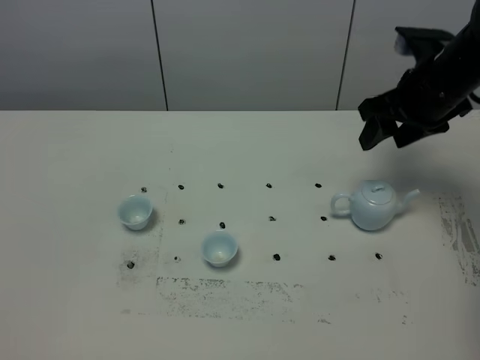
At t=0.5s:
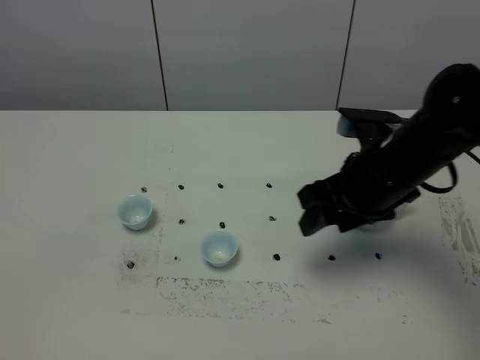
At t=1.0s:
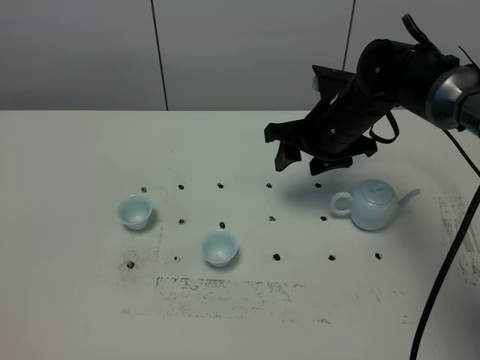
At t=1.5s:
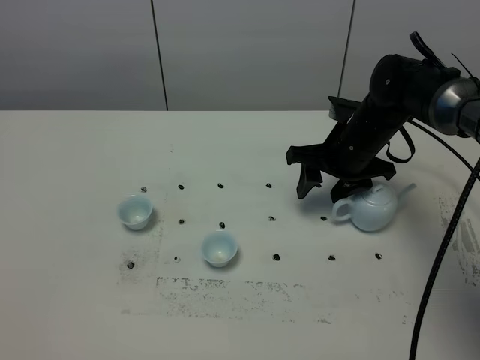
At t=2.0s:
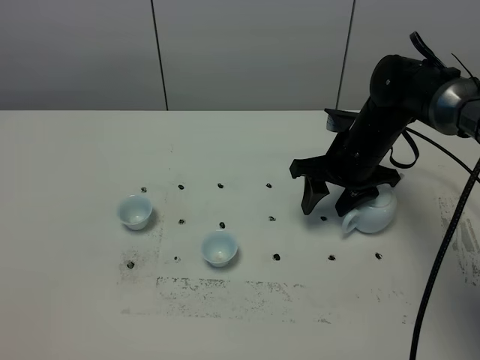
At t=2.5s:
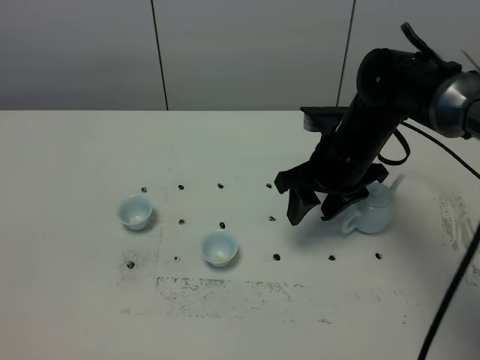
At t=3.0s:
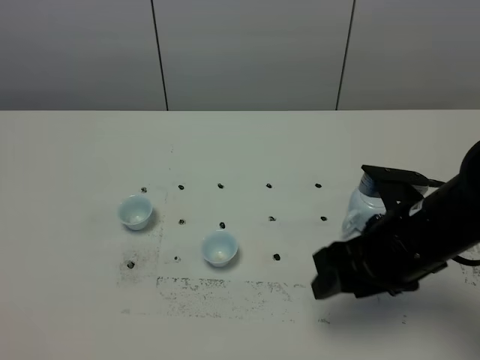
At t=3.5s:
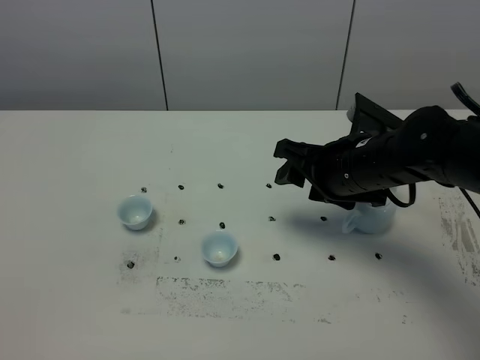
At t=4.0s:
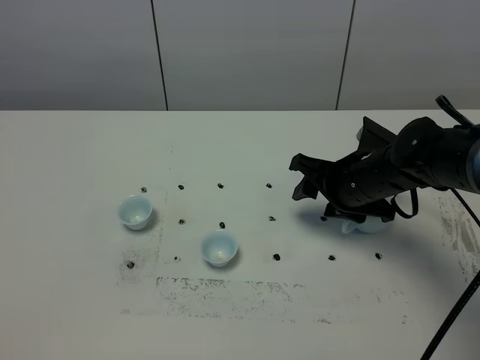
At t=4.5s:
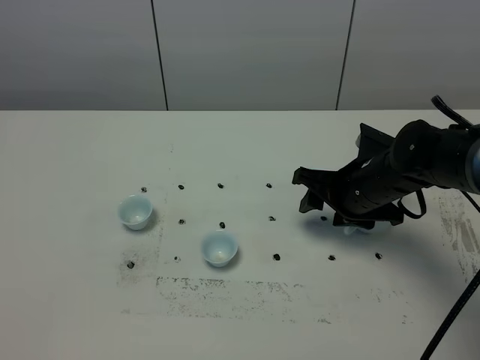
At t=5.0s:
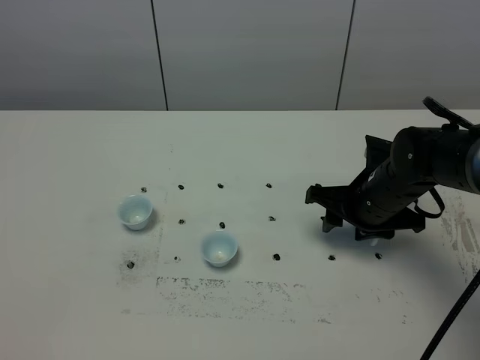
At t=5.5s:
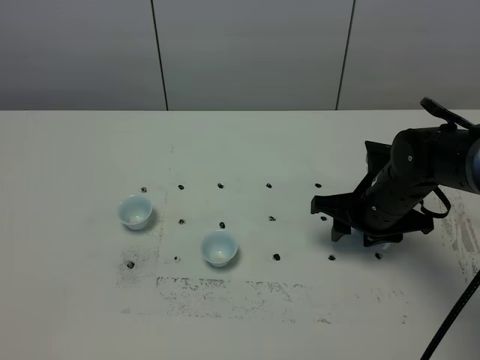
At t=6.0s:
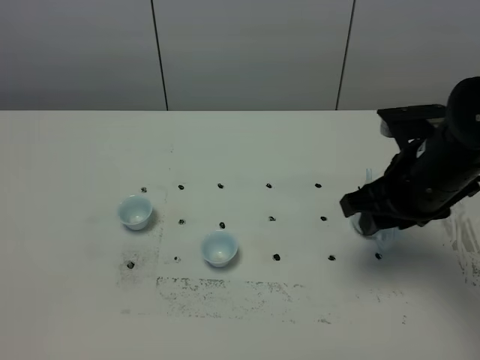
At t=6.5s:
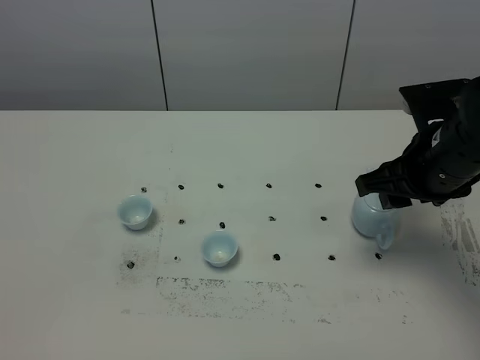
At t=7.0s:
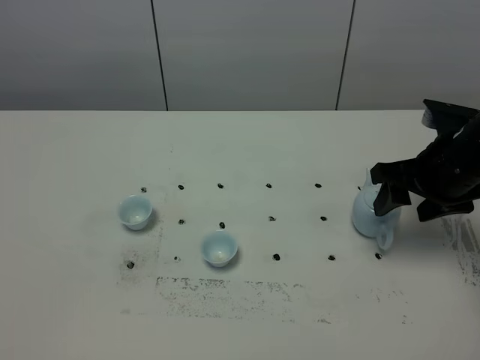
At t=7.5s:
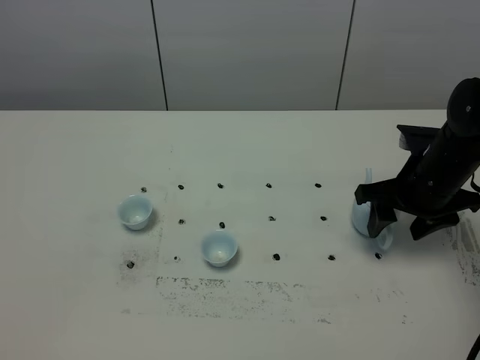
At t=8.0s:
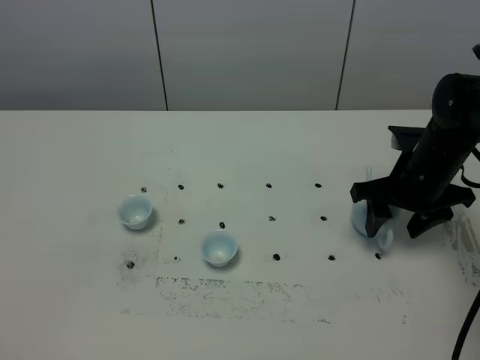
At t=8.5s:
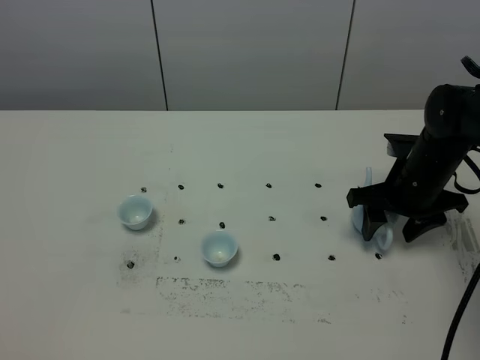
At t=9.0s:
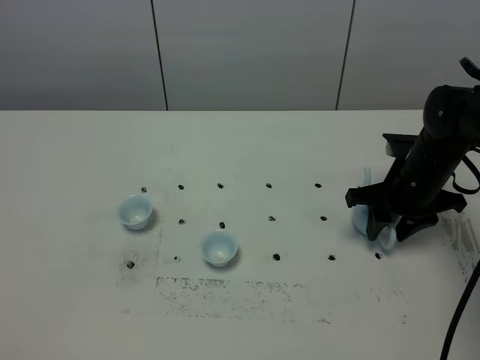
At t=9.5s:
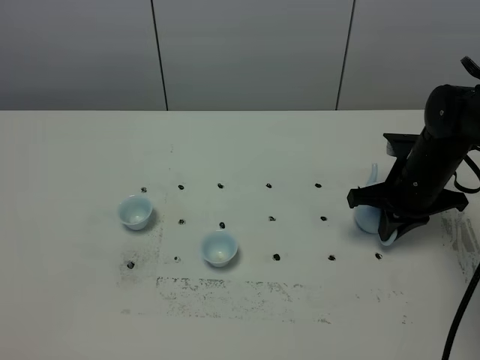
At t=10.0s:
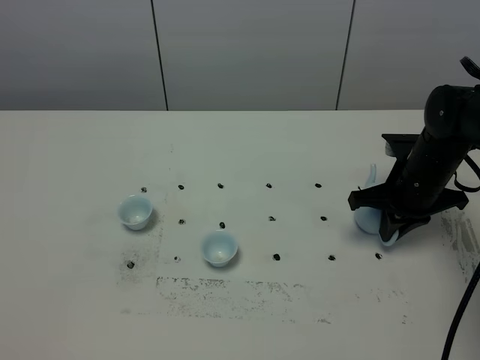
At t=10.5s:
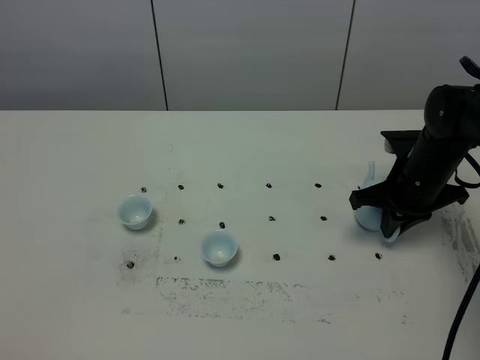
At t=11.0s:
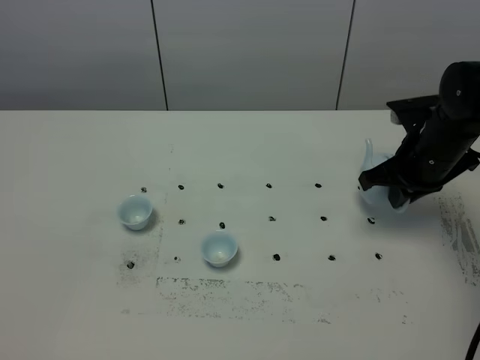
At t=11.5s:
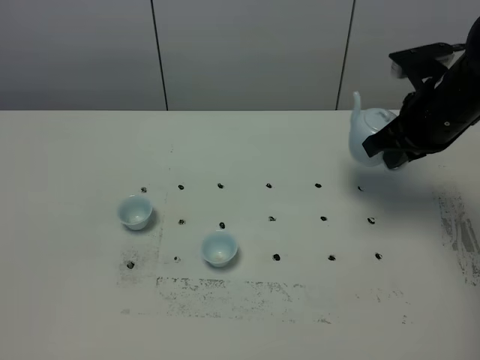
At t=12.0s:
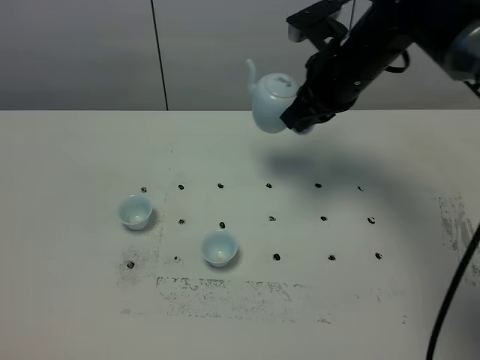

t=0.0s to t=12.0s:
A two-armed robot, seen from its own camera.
Task of the whole recording: grasp the blue porcelain teapot and pour the tea into the two blue porcelain teacups one by one, put the blue porcelain teapot back in its original place.
Step, t=0.0s to t=11.0s: Pick up the teapot with the right gripper.
t=0.0s to t=2.0s: The right gripper shifts some 15 cm downward and to the left, and travels backward and back again, about 10 cm each way.
t=2.0s to t=4.0s: The right gripper travels backward and back again, approximately 20 cm each way.
t=4.0s to t=6.0s: The right gripper moves upward, backward and to the right, some 10 cm.
t=6.0s to t=8.0s: The right gripper shifts approximately 10 cm forward and downward.
t=8.0s to t=10.0s: The right gripper closes its fingers.
t=10.0s to t=12.0s: The right gripper shifts approximately 20 cm upward and to the left.

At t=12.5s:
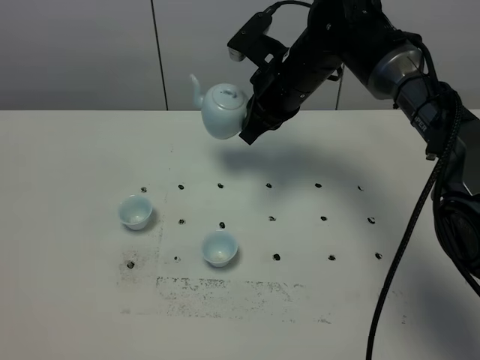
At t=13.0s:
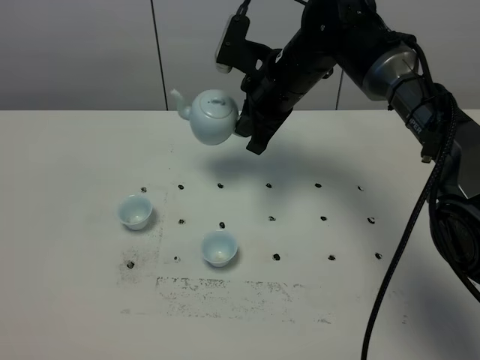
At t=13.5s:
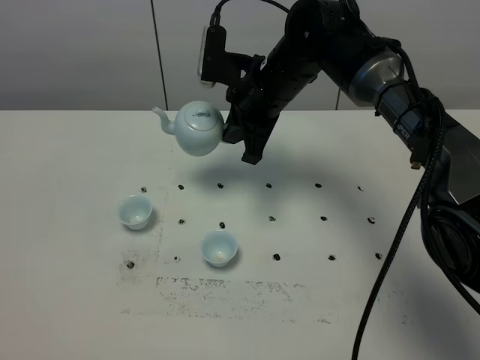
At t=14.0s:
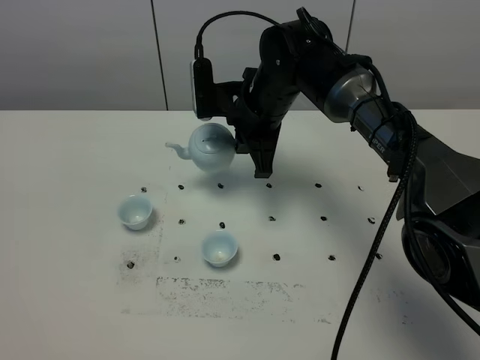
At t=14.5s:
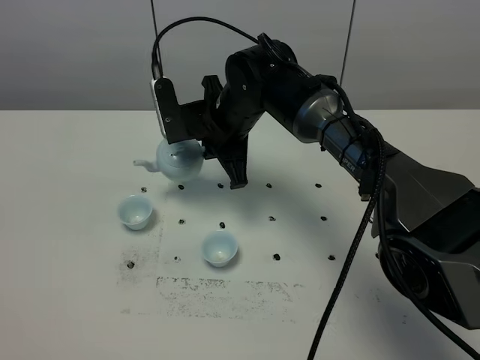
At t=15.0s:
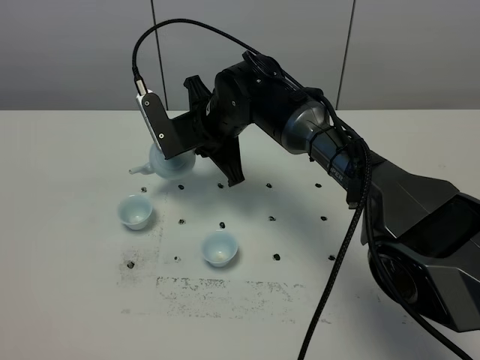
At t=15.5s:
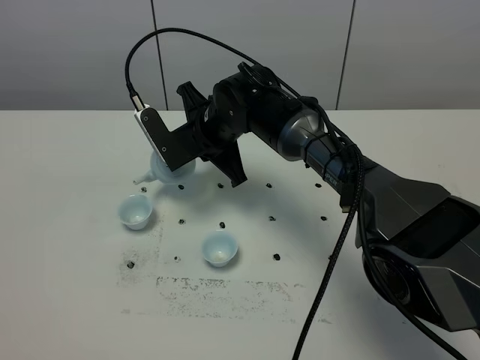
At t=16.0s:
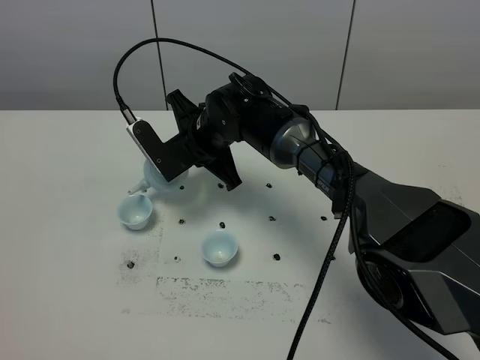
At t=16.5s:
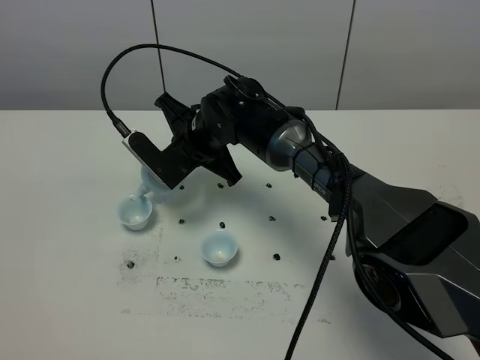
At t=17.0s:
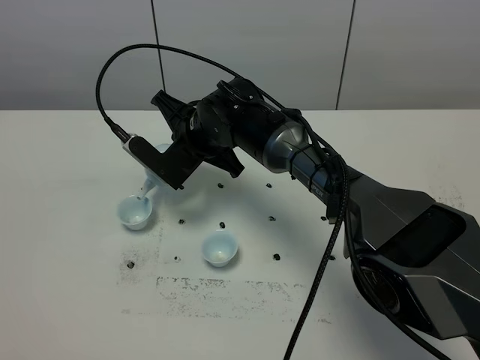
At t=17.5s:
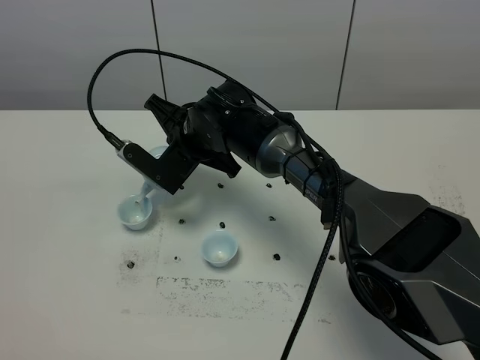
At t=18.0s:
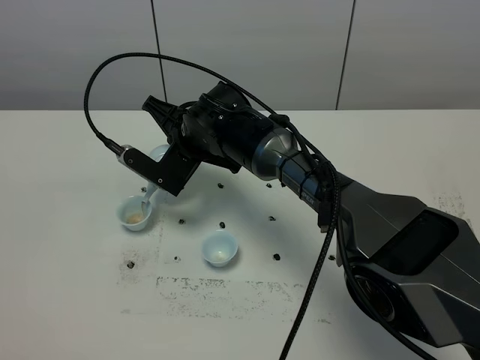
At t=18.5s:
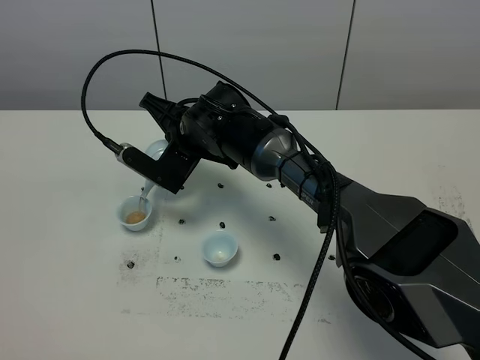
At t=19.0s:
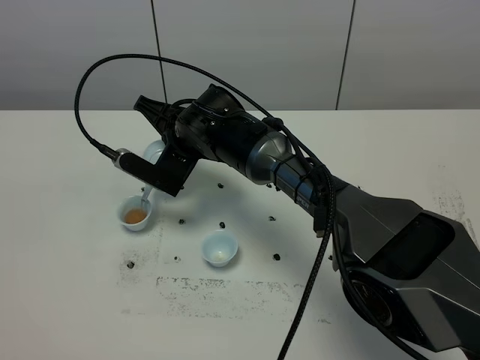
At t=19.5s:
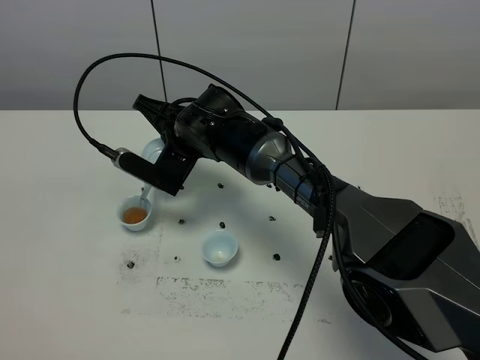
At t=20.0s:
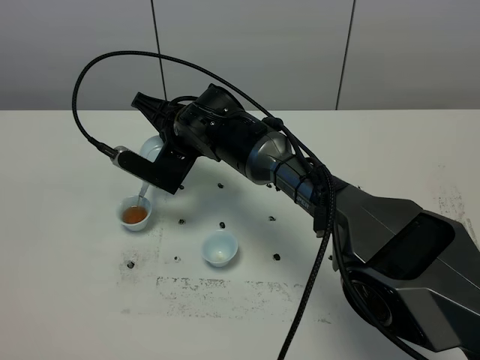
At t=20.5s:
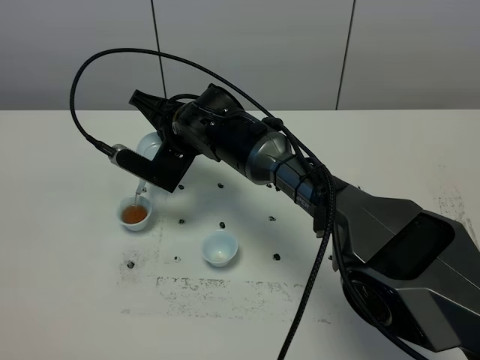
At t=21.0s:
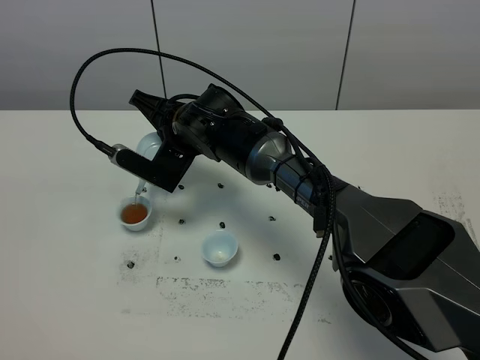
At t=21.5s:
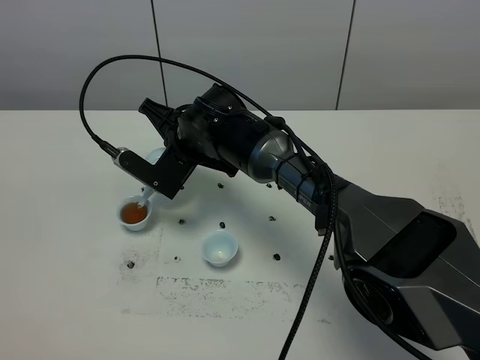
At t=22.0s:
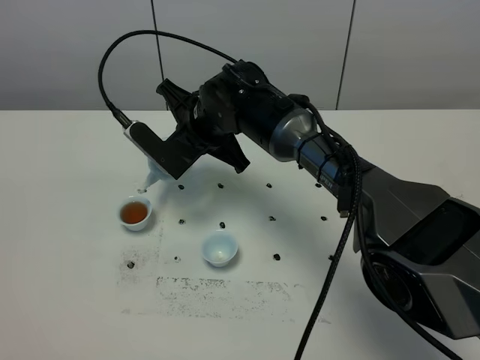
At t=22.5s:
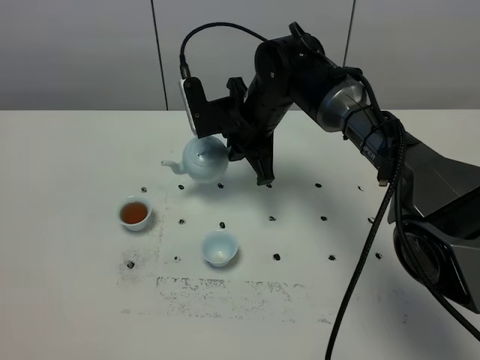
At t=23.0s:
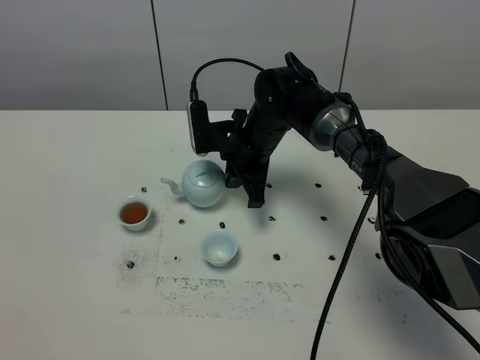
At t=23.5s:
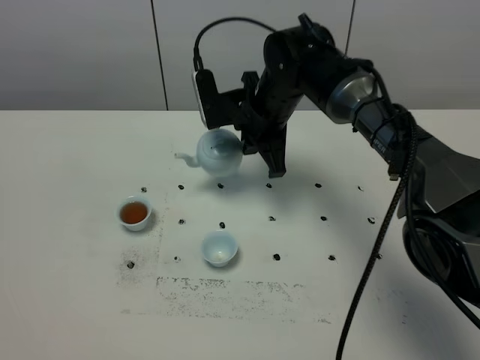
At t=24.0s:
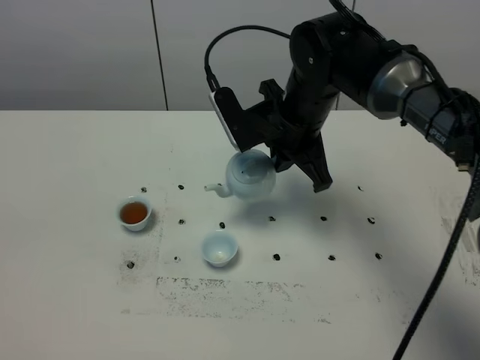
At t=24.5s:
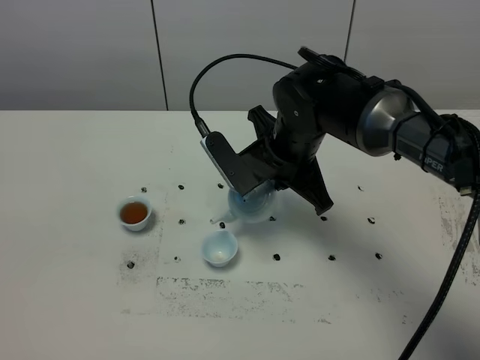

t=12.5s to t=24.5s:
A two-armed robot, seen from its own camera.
Task of the whole recording: grasp the blue porcelain teapot and pour the tea into the two blue porcelain teacups one by one, put the blue porcelain teapot back in its original place.
t=12.5s to t=14.5s: The right gripper moves to the left, roughly 5 cm.
t=16.5s to t=18.5s: The grippers stay close to where they were, moving slightly.
t=18.5s to t=20.5s: The grippers move only a little.
t=20.5s to t=22.5s: The right gripper is displaced to the right by approximately 10 cm.
t=22.5s to t=24.5s: The right gripper heads backward, covering approximately 5 cm, and moves some 5 cm downward and comes back.

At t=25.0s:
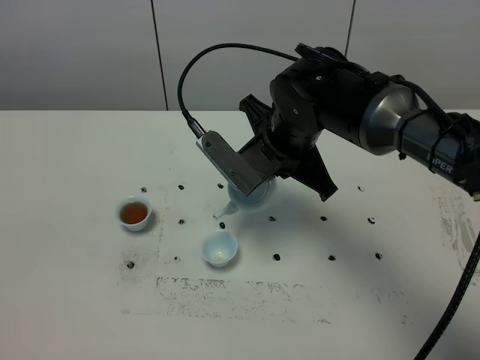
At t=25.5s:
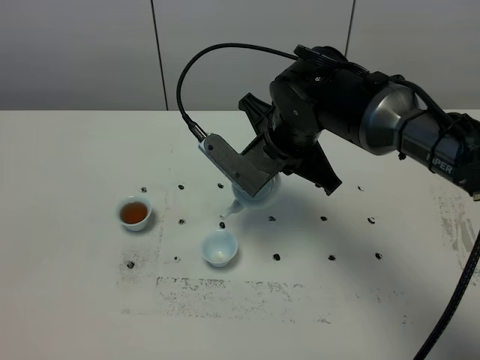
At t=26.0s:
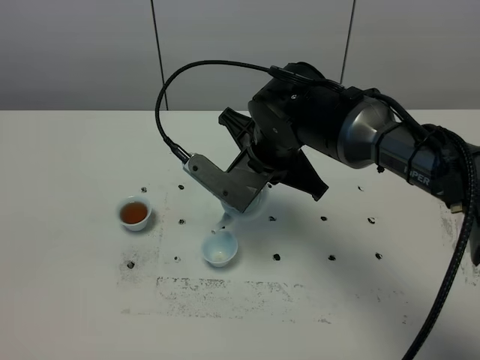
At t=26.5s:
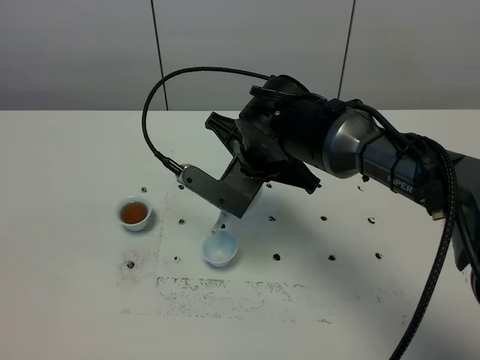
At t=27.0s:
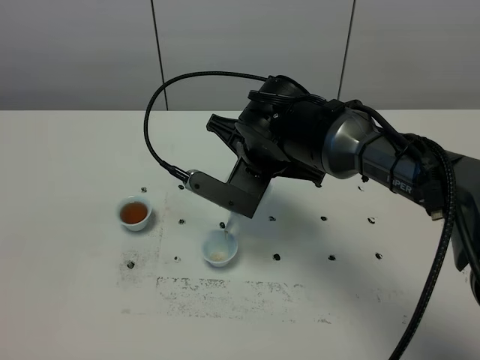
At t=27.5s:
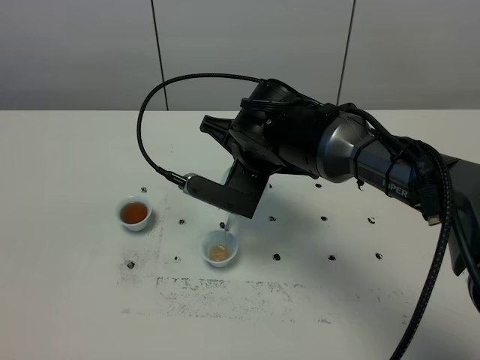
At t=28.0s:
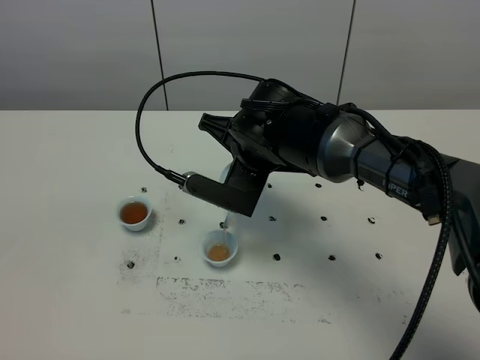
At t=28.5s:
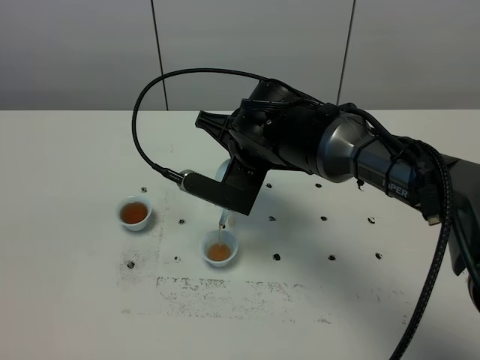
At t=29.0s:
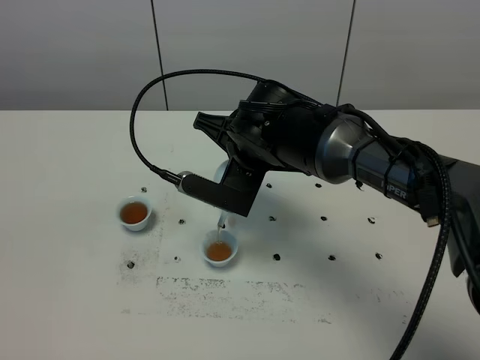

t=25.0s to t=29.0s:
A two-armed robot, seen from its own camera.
Task of the whole recording: grasp the blue porcelain teapot and pour the tea into the two blue porcelain teacups one by one, put the blue porcelain teapot back in its original place.
t=27.0s to t=29.0s: The grippers move only a little.
